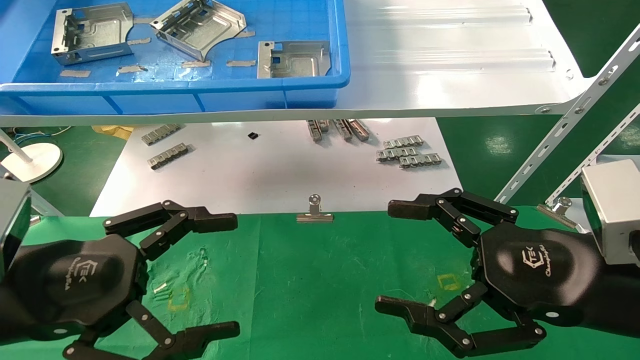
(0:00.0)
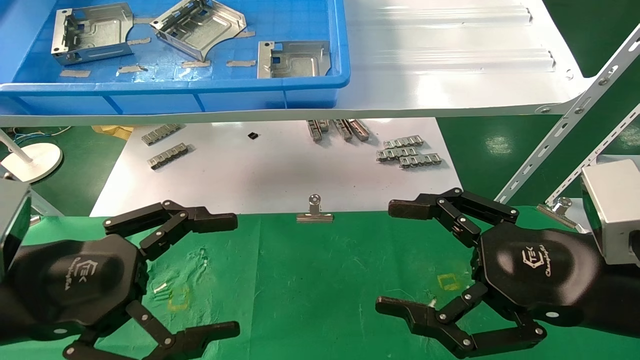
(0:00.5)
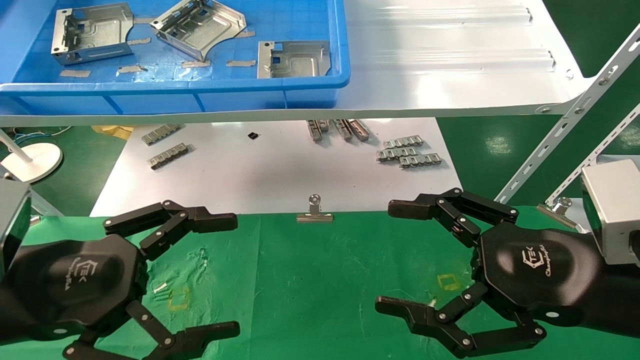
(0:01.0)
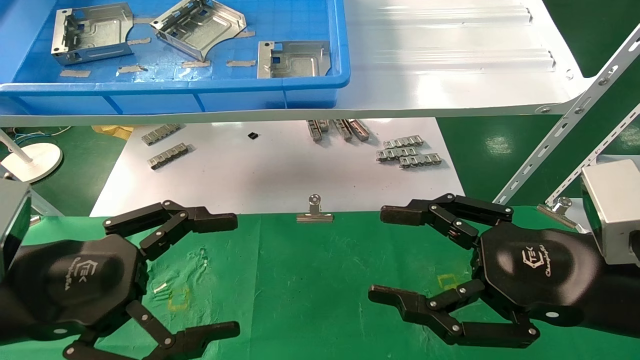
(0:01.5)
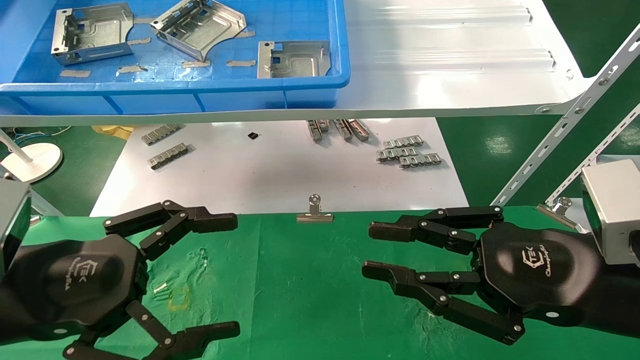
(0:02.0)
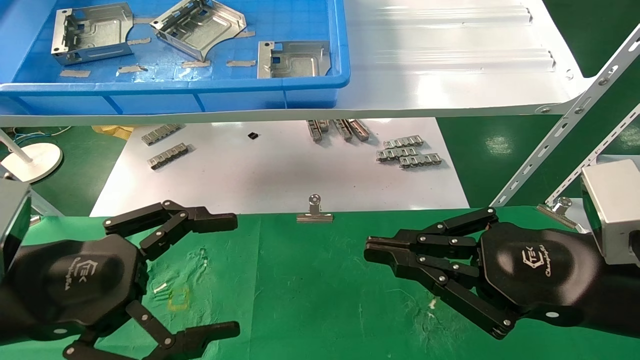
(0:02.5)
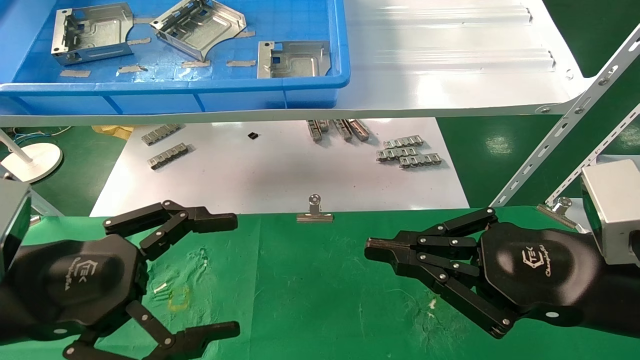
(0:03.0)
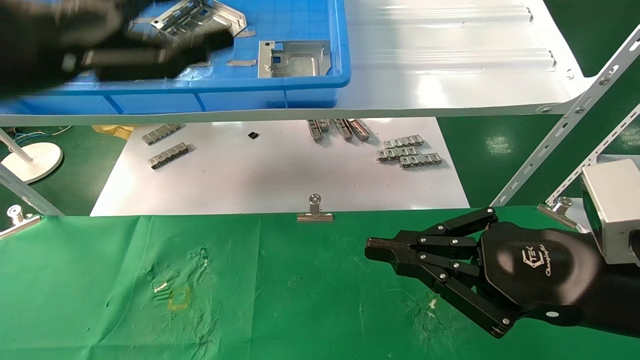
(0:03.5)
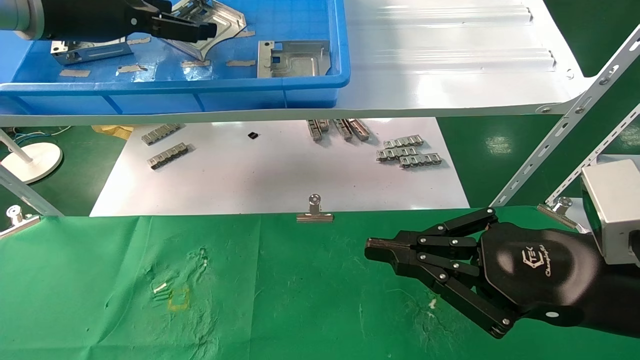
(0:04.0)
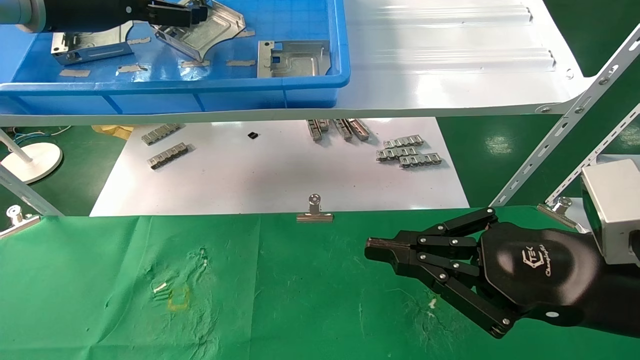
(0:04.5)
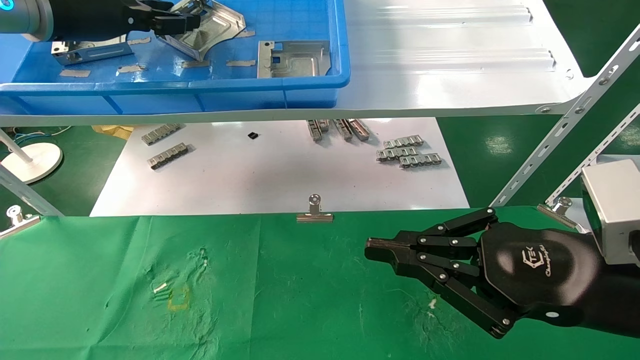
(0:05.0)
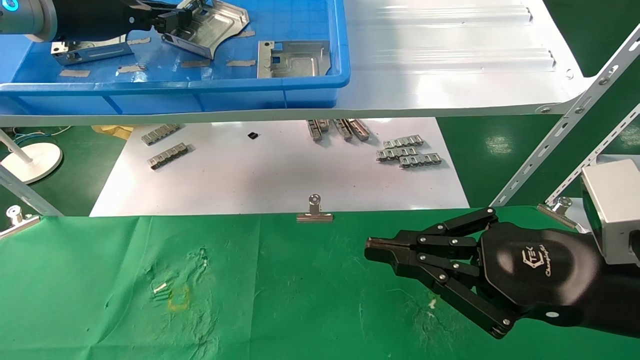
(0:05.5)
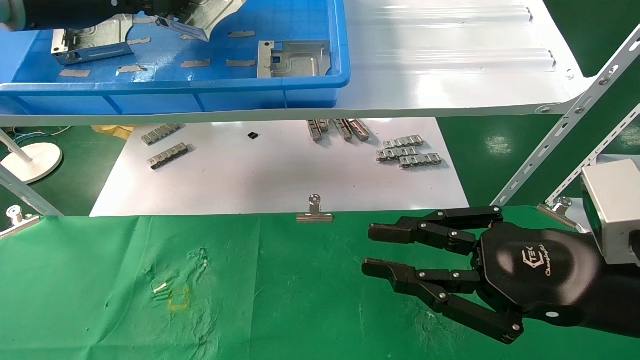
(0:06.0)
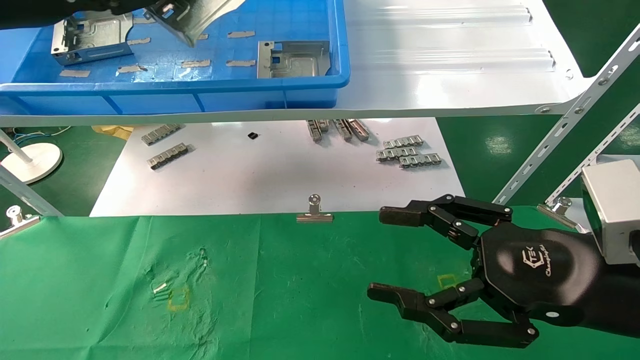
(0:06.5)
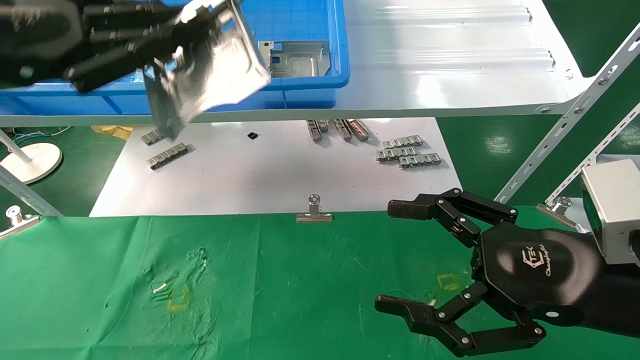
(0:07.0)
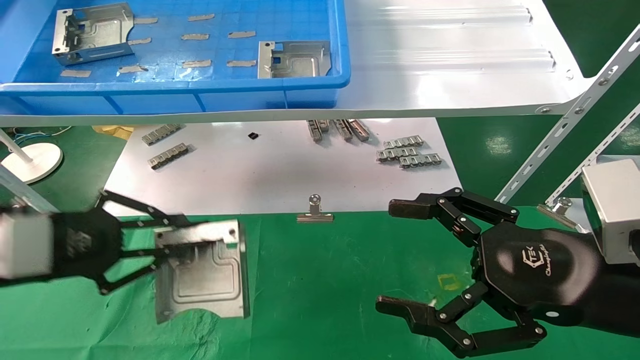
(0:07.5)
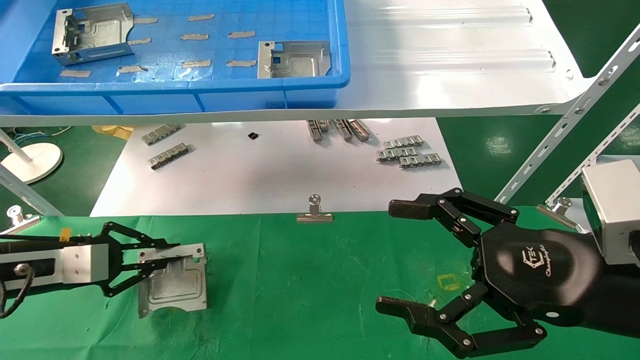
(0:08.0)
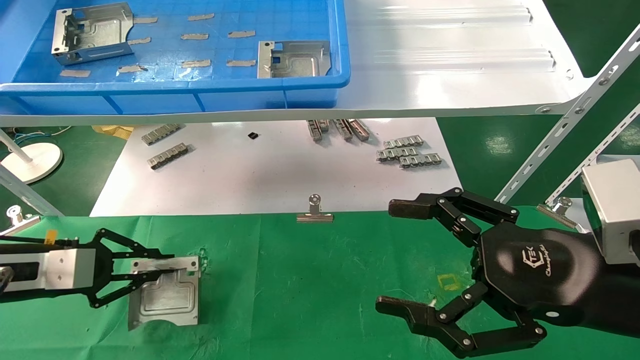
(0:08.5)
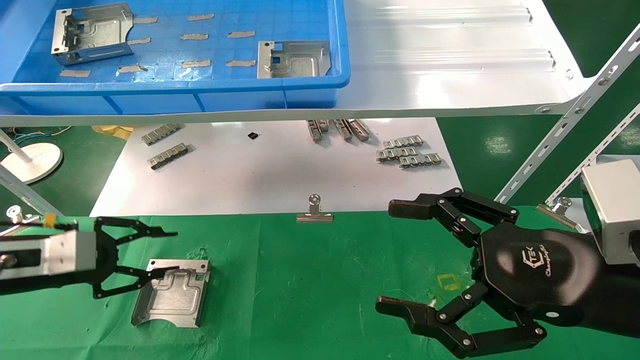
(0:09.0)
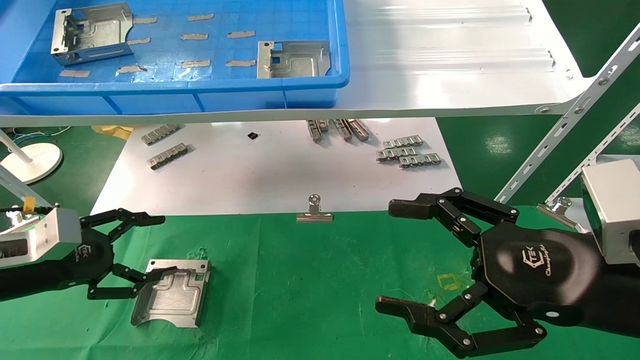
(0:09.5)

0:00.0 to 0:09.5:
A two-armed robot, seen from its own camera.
Task of the whole recording: use the mechanical arm to pick up the parts and place them on the table.
Step, 0:03.5 to 0:05.0: Pick up the hard drive bracket from the feeding area.
Step, 0:05.5 to 0:08.5: Place the hard drive bracket into the box.
0:00.0 to 0:02.0: The right gripper closes up.
0:02.0 to 0:04.0: The right gripper closes its fingers. Meanwhile the left gripper heads upward and forward, covering about 30 cm.
0:04.0 to 0:05.5: The left gripper closes.
0:05.5 to 0:07.5: The left gripper is displaced downward and backward by roughly 25 cm; the right gripper opens up.
0:07.5 to 0:09.5: The left gripper shifts approximately 10 cm downward and to the left, and opens up.

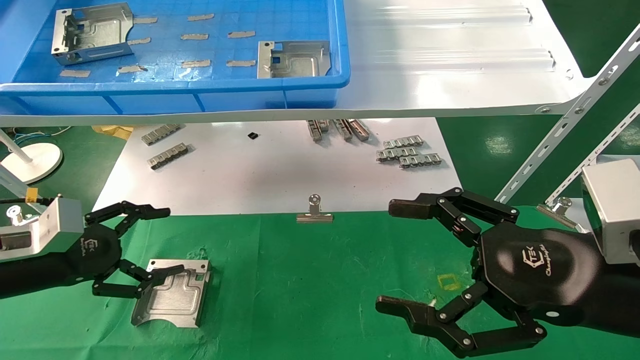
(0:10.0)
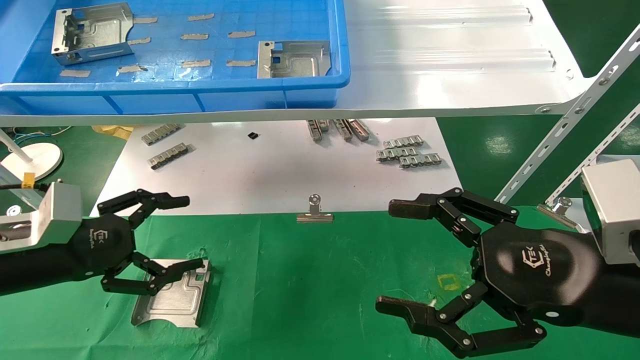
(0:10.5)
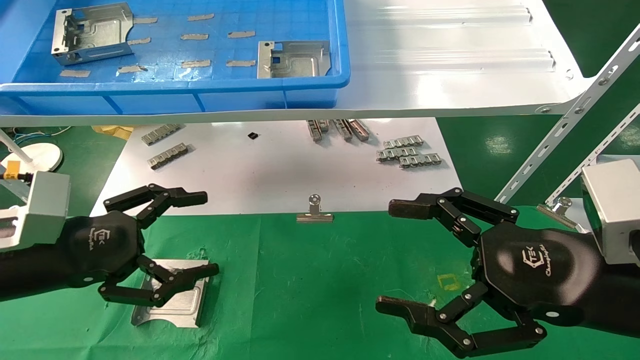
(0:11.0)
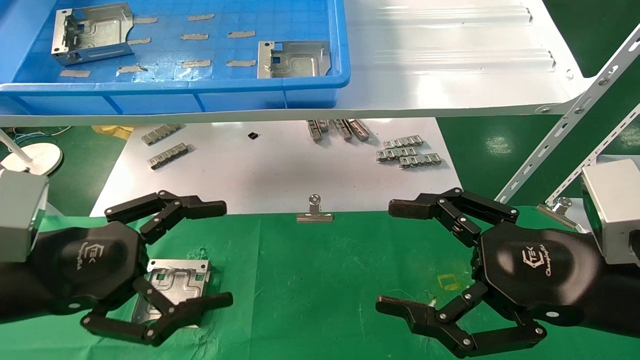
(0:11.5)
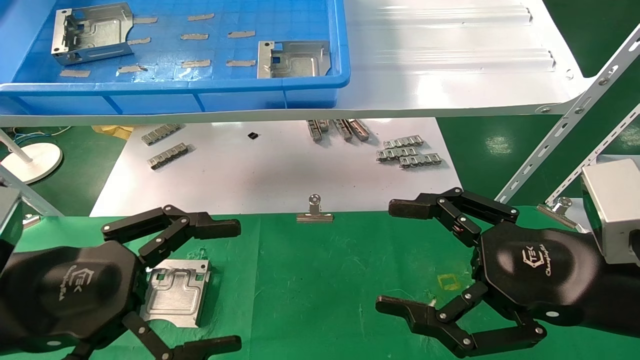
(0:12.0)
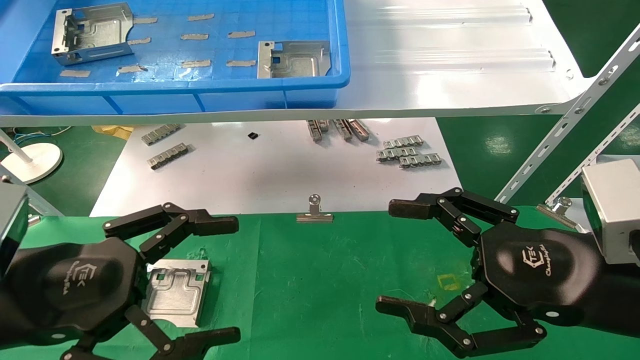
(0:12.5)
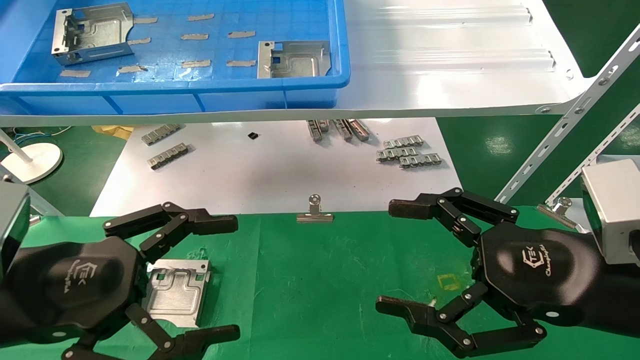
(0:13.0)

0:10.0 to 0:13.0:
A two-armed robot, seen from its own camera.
Task of the whole recording: use the mechanical arm to pick up the parts and place them on the table.
0:10.0 to 0:11.5: The left gripper is displaced backward, to the right and upward by some 15 cm.
0:11.5 to 0:13.0: The grippers move only a little.
